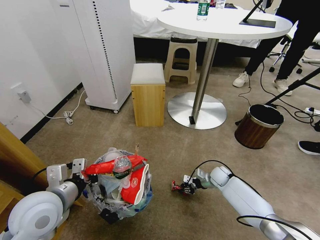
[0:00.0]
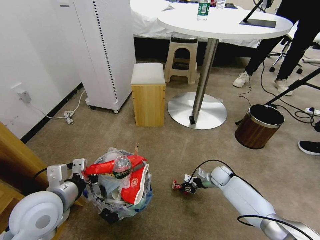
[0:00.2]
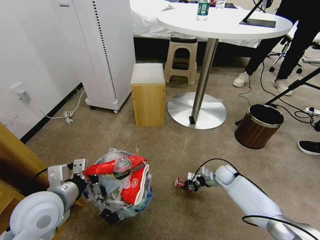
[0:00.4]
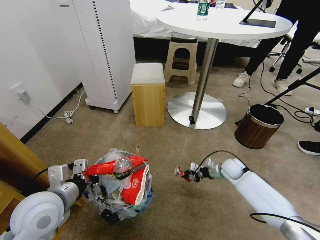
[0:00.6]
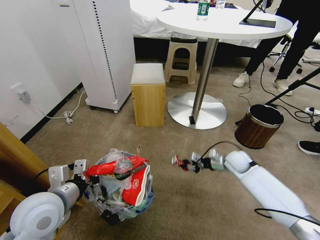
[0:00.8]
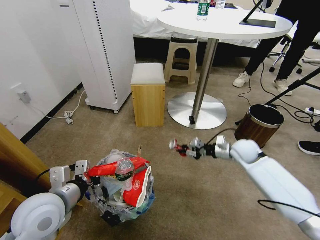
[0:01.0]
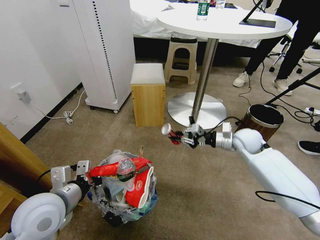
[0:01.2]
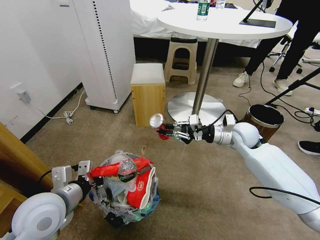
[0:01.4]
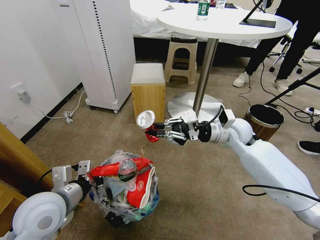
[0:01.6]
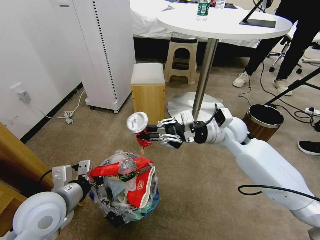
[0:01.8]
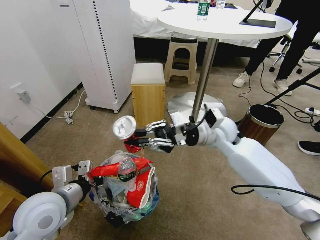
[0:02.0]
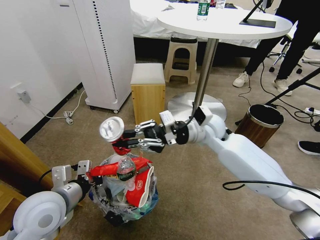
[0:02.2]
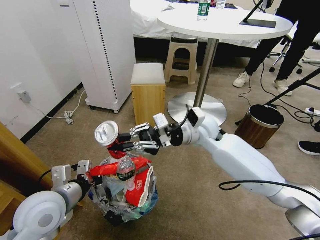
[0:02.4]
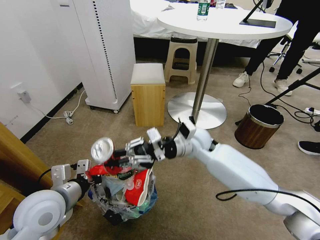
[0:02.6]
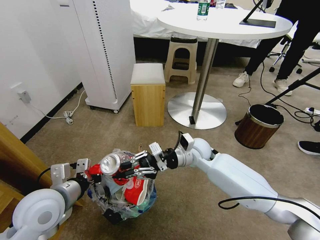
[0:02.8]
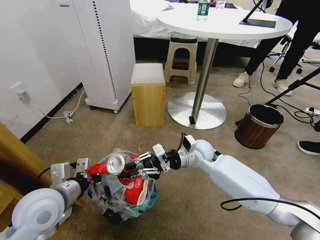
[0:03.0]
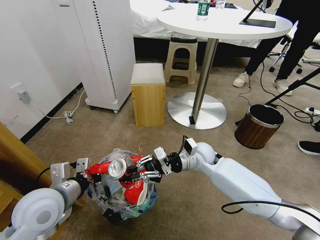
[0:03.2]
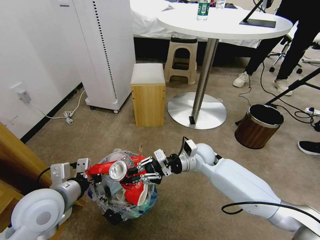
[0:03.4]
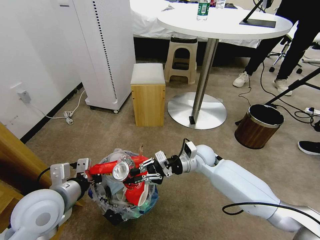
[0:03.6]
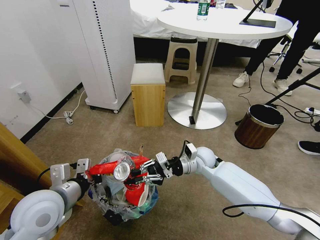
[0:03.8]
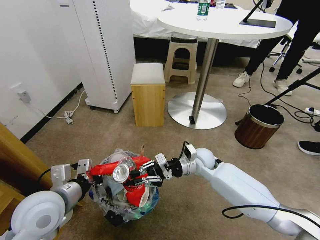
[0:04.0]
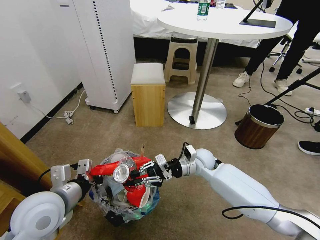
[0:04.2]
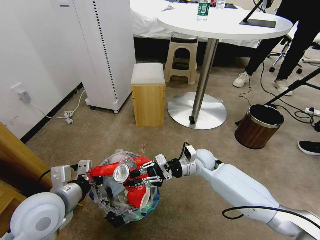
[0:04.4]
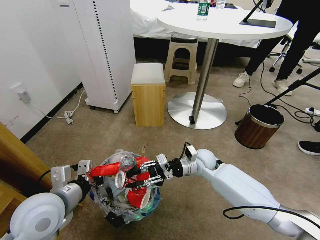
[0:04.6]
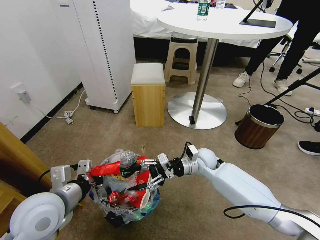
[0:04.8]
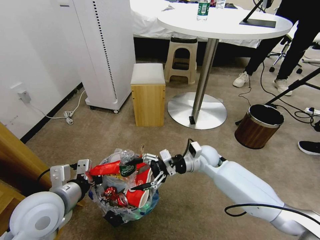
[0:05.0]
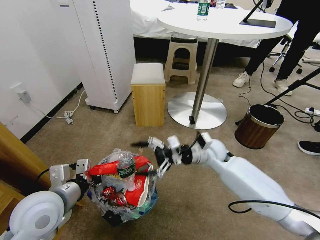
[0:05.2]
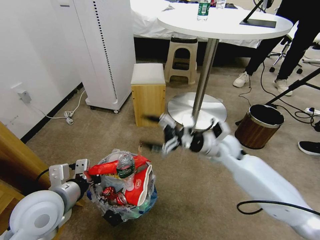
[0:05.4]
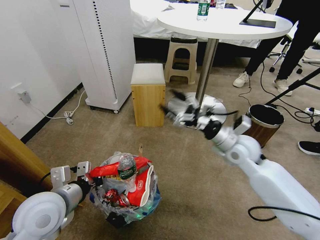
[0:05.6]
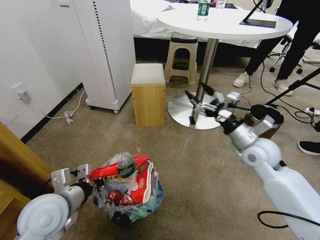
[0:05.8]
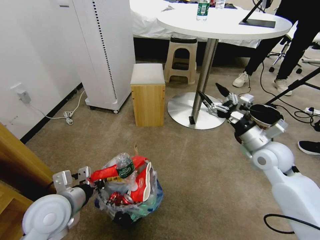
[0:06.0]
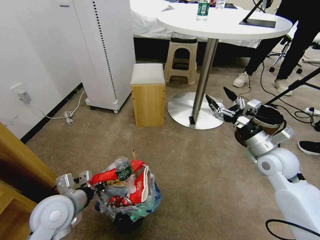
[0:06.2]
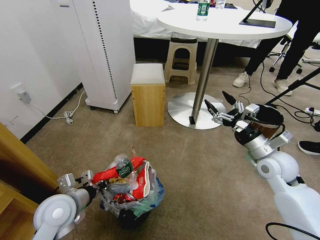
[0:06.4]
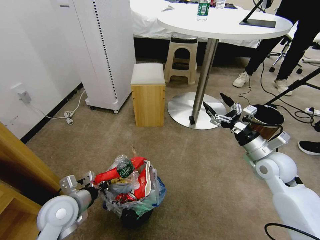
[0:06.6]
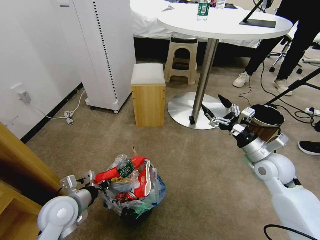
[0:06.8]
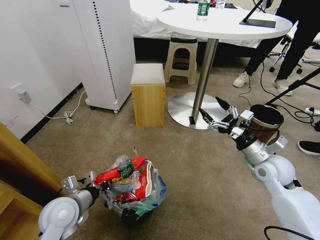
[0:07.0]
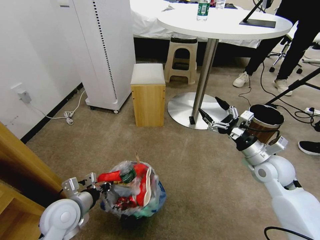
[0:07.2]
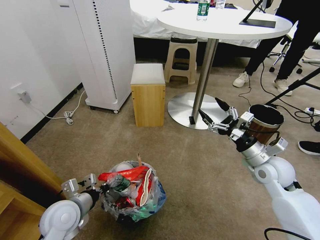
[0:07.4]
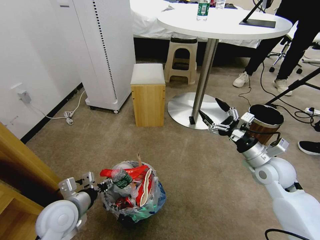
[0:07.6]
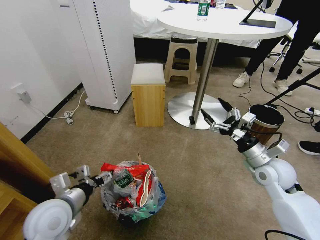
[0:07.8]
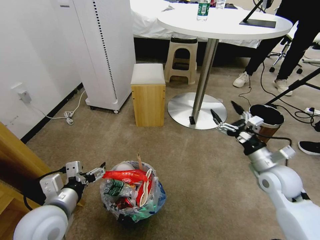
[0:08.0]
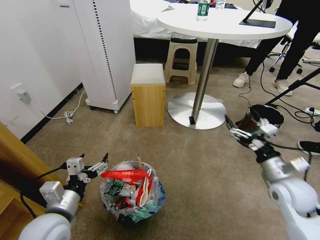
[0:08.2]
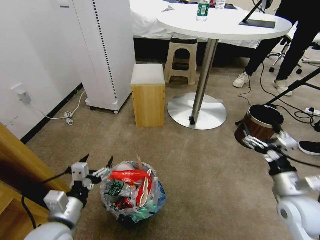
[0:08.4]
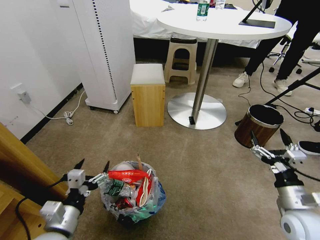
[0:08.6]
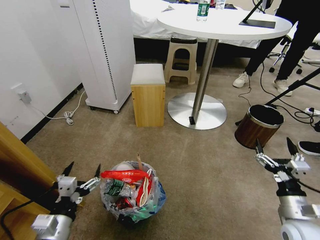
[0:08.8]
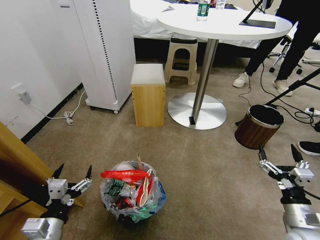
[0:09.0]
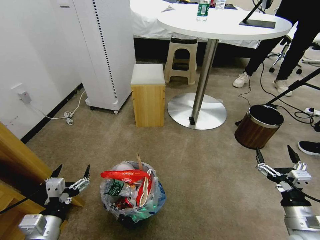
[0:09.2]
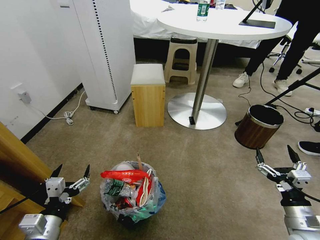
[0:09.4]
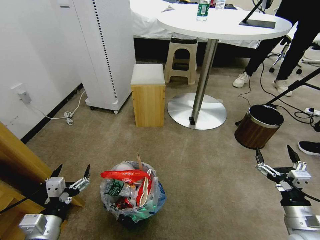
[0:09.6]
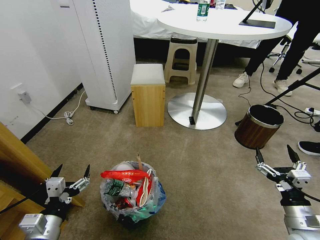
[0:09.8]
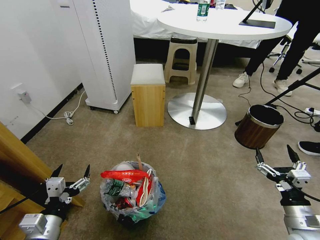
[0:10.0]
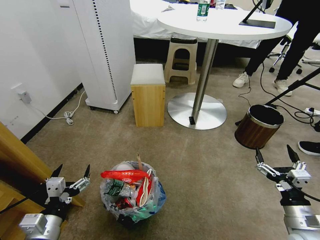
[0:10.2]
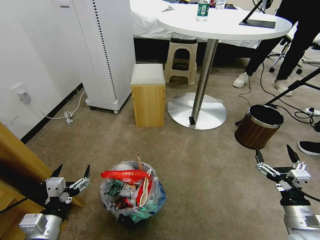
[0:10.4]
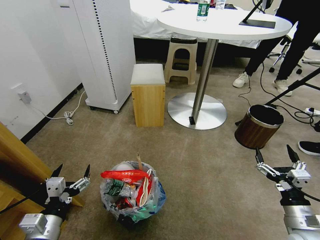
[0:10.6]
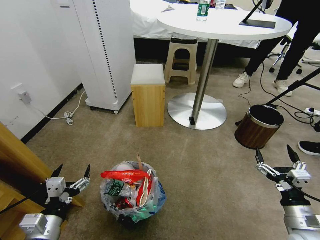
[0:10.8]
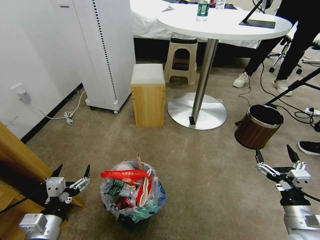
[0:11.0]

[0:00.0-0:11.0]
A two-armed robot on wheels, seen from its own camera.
Task of the whole recording: Pick up the trash bin and place the garbage on the floor into it.
0:00.0 to 0:01.6: The right gripper goes approximately 30 cm upward.
0:01.6 to 0:03.2: The right gripper heads to the left and downward, covering some 15 cm.
0:03.2 to 0:04.8: The right gripper opens up.
0:04.8 to 0:06.2: The right gripper goes some 20 cm to the right, upward and backward, and opens its fingers, while the left gripper moves downward, about 5 cm.
0:06.2 to 0:07.8: The left gripper opens up.
0:07.8 to 0:09.4: The left gripper travels backward by roughly 10 cm; the right gripper moves backward and downward, approximately 20 cm.
0:09.4 to 0:11.0: Neither gripper changes place.

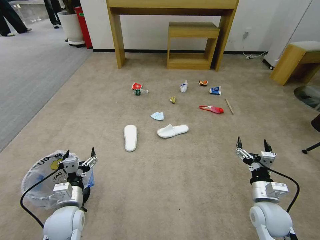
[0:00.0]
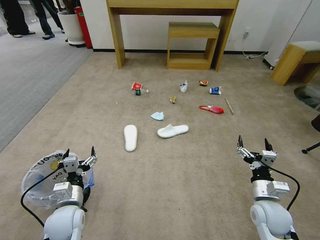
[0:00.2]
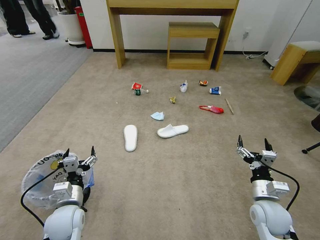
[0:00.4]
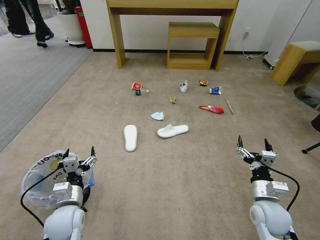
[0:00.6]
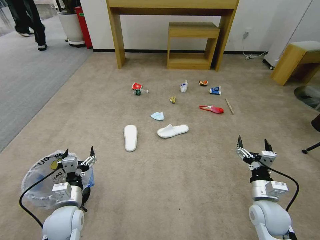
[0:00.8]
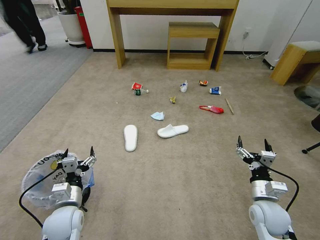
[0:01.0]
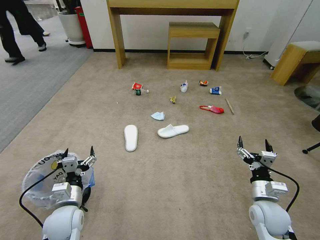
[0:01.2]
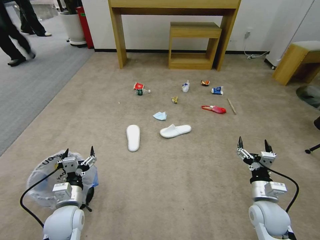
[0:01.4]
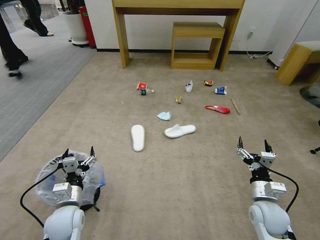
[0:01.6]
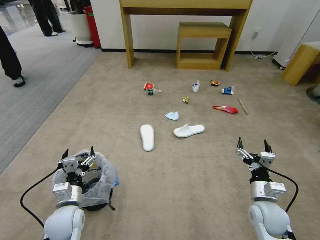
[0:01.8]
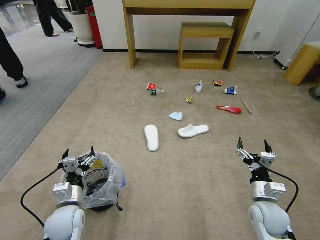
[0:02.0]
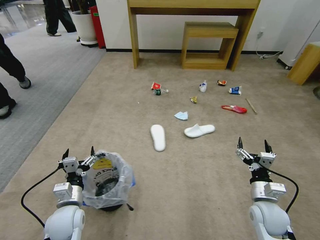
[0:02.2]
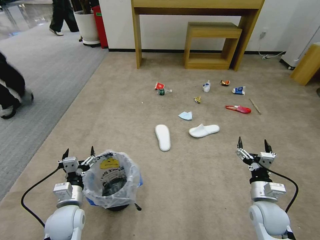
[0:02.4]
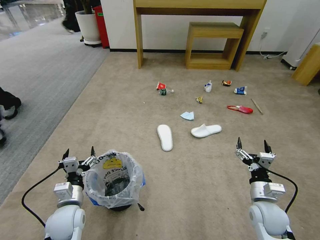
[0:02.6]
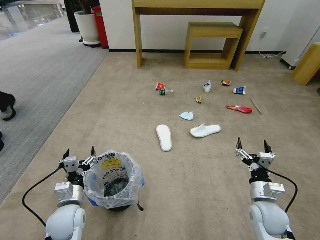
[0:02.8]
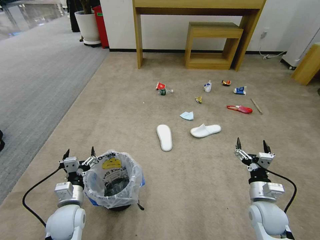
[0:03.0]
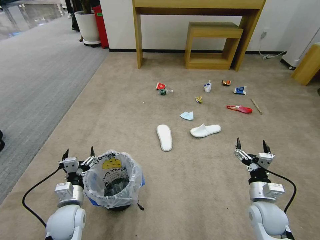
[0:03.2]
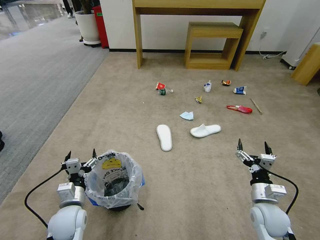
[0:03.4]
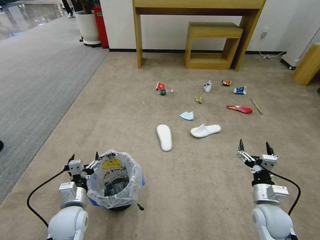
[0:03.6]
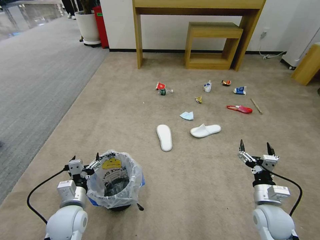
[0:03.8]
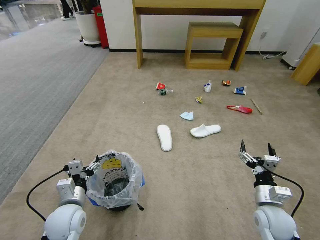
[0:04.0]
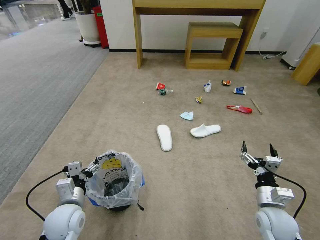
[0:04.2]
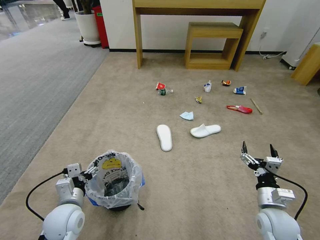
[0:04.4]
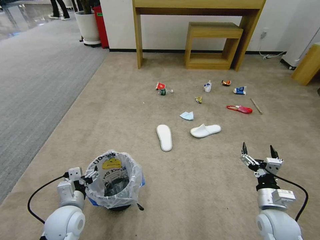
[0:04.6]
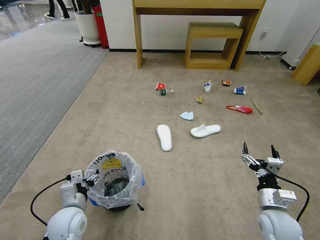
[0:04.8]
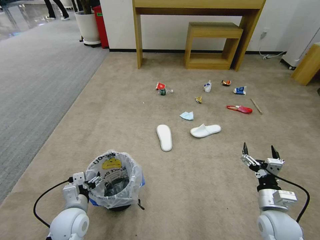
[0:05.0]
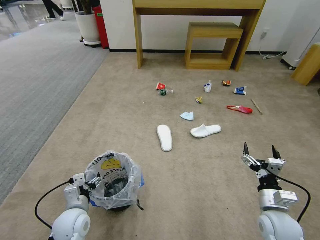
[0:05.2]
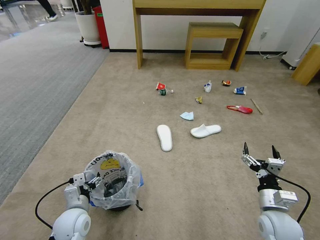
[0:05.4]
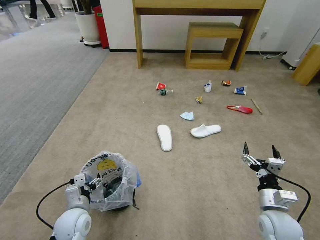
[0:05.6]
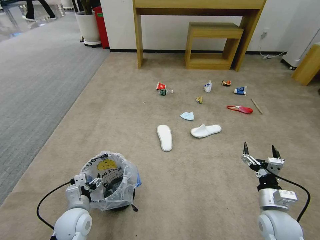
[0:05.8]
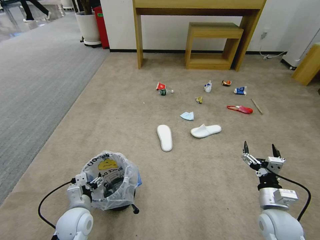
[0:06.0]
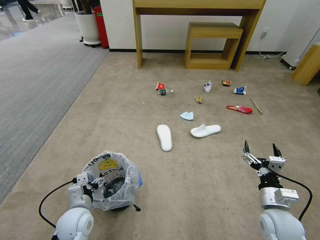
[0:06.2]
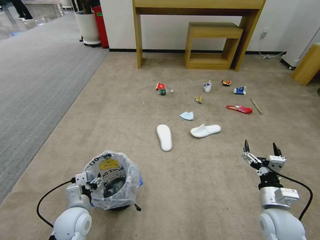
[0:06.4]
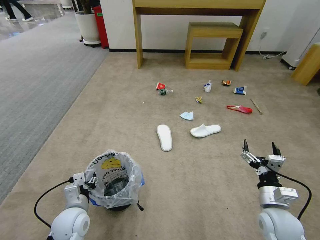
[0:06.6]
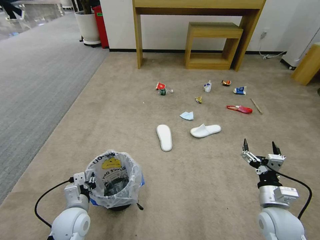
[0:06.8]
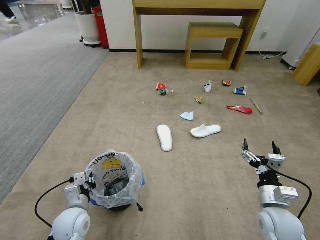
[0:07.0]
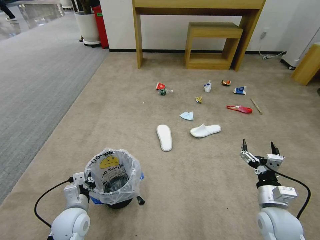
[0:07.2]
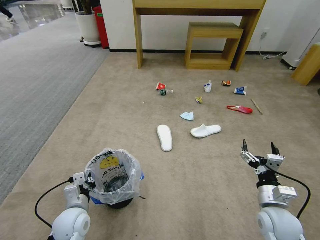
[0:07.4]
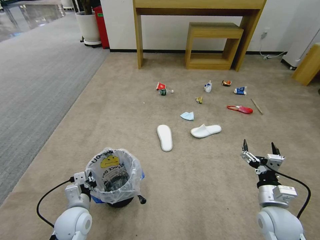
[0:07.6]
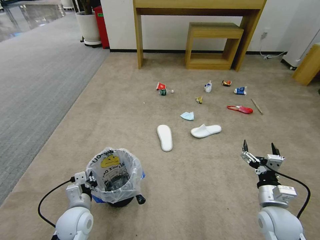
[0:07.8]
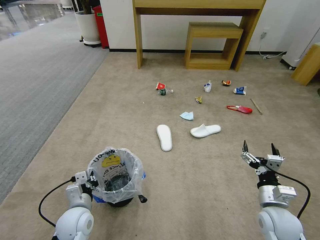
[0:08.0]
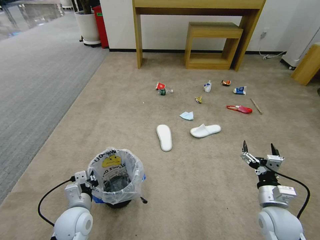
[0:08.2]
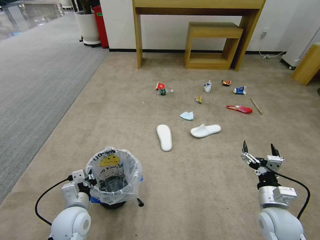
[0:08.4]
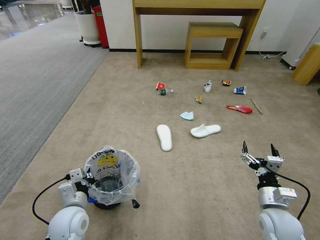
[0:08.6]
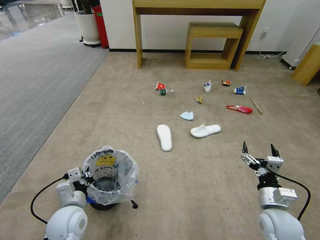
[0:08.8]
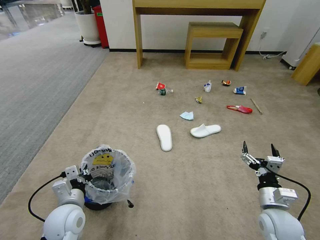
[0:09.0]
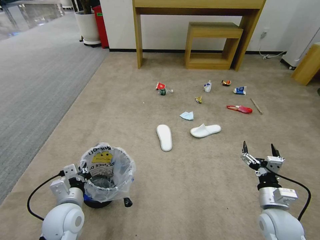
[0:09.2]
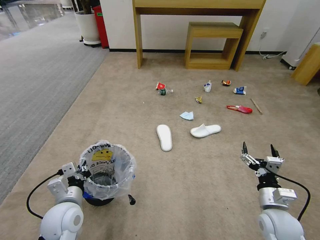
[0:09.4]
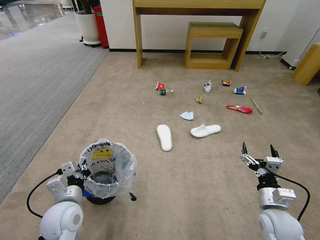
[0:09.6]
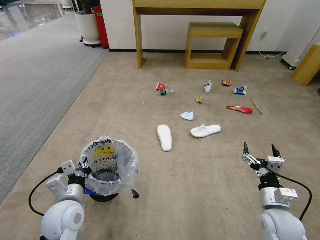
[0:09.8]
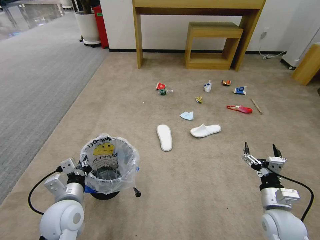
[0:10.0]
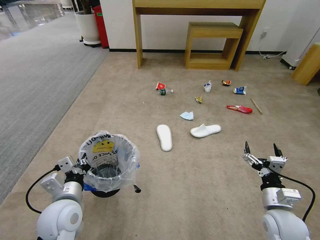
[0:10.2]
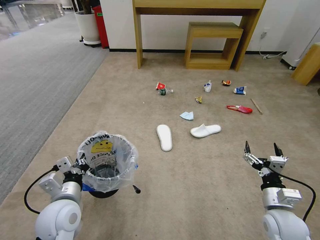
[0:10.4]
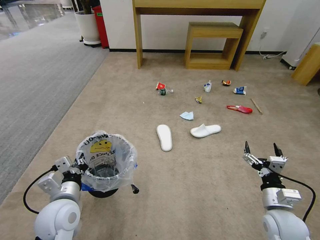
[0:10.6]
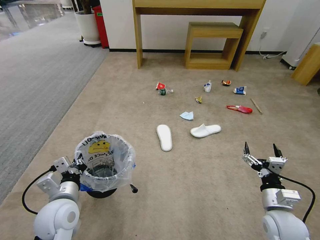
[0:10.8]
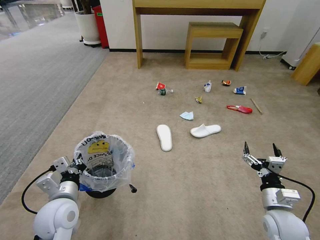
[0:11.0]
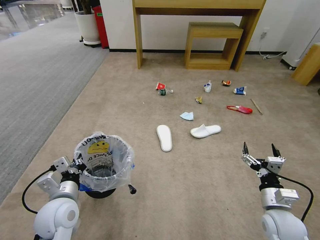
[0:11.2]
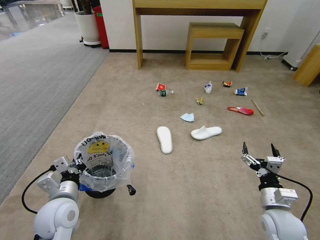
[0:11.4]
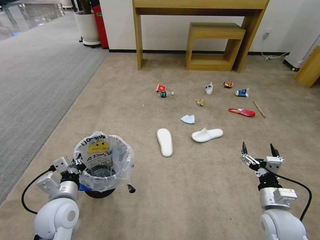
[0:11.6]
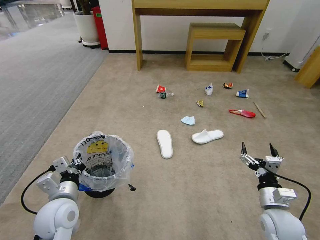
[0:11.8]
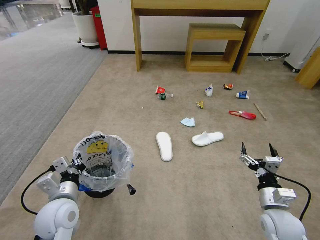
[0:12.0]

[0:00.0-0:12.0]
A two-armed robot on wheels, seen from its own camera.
Task of the whole recording: Pick up the trash bin and place the garbage on the floor into it.
0:04.4 to 0:06.0: The left gripper heads downward, covering approximately 5 cm.
0:06.0 to 0:07.6: The left gripper closes.
0:07.6 to 0:09.0: The left gripper goes some 5 cm upward.
0:09.0 to 0:12.0: The grippers move only a little.
